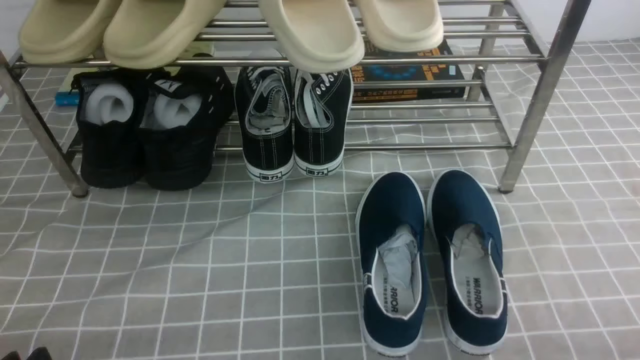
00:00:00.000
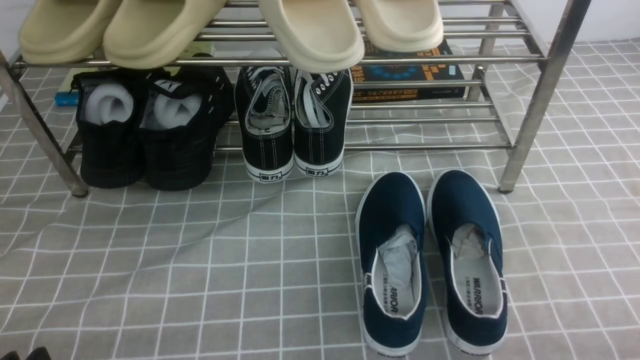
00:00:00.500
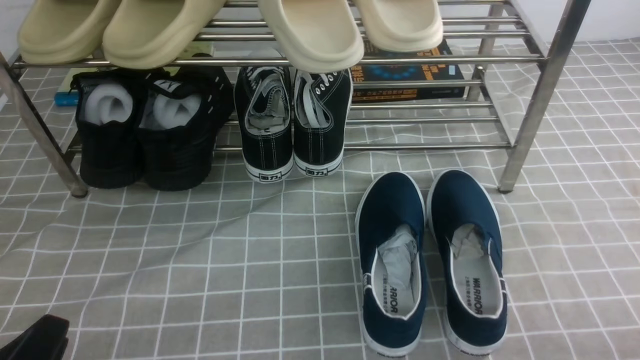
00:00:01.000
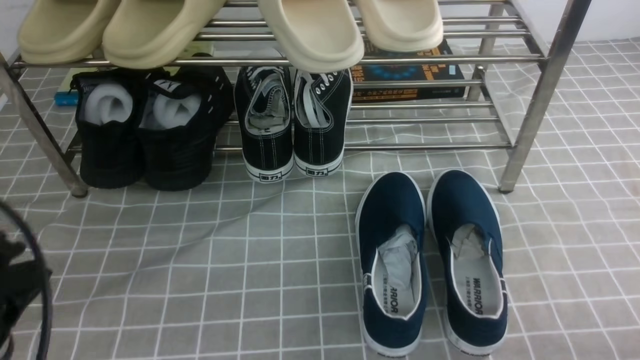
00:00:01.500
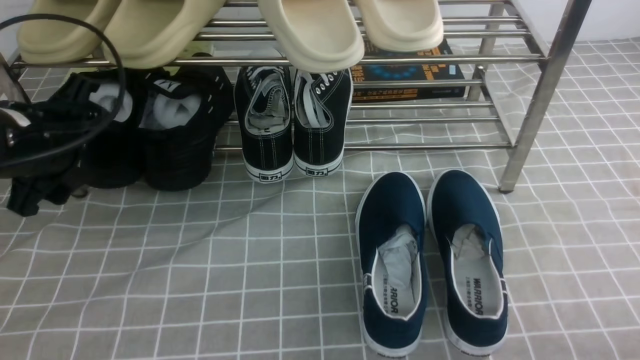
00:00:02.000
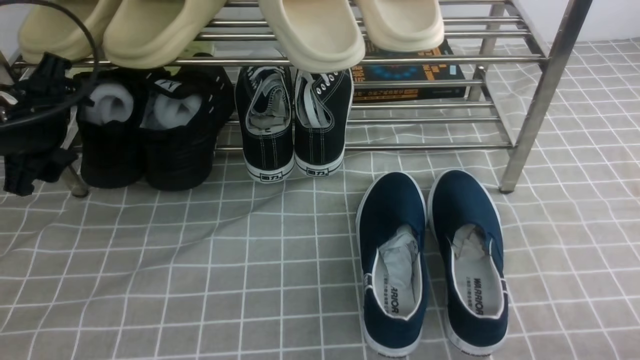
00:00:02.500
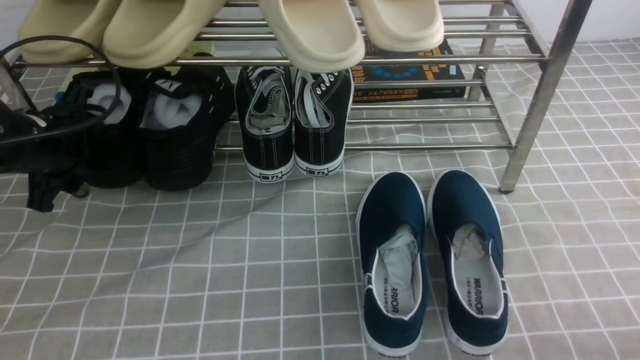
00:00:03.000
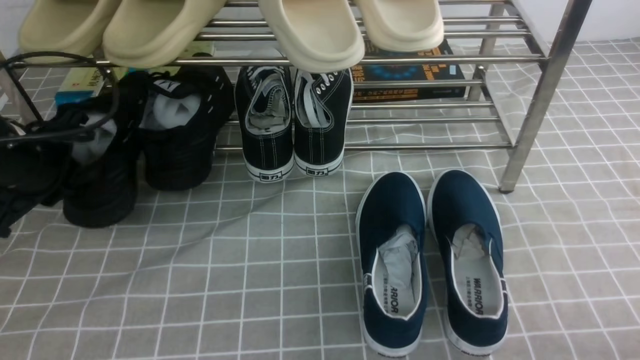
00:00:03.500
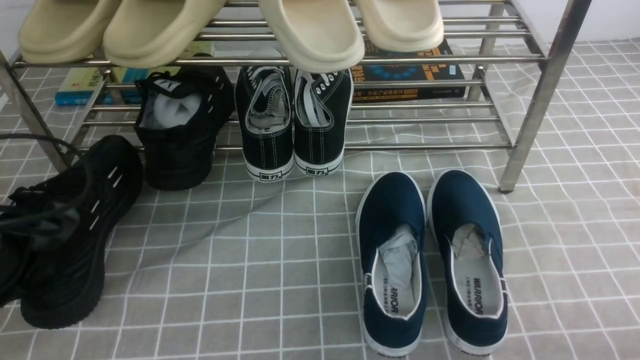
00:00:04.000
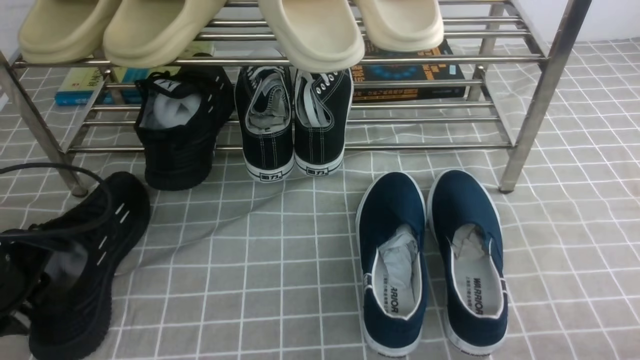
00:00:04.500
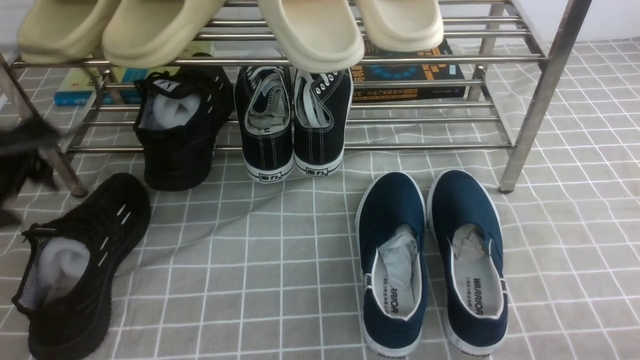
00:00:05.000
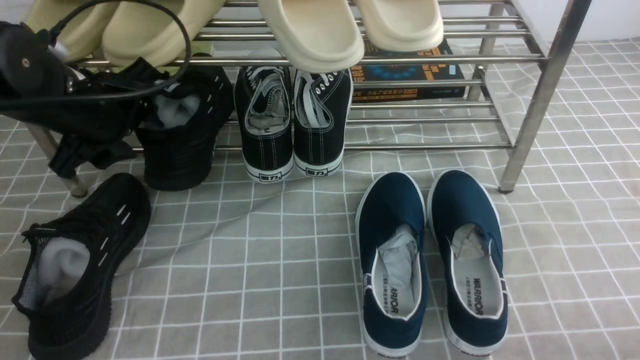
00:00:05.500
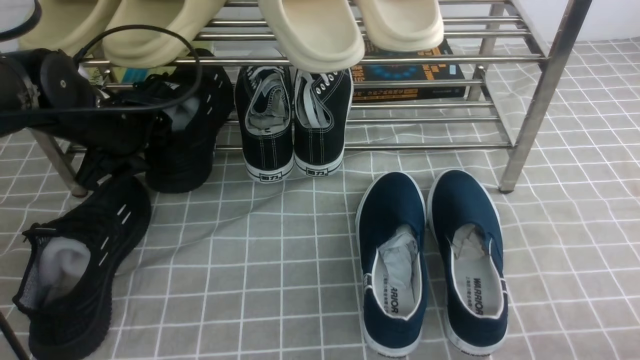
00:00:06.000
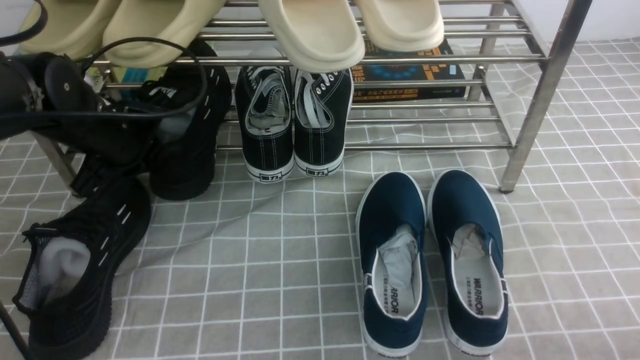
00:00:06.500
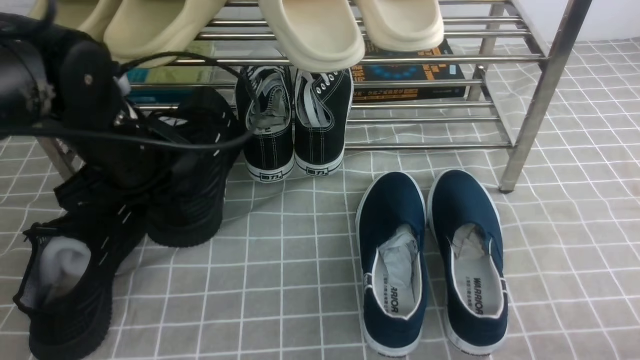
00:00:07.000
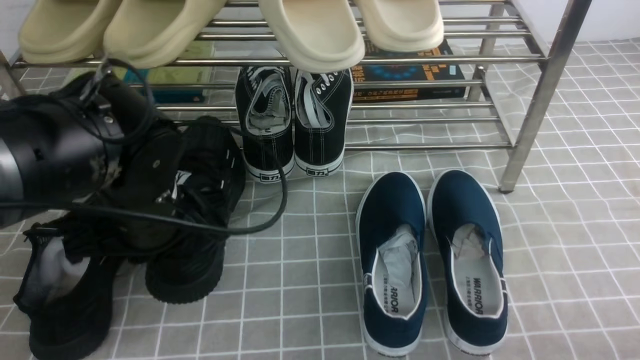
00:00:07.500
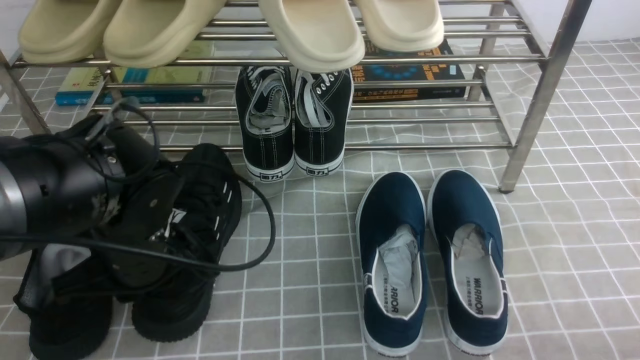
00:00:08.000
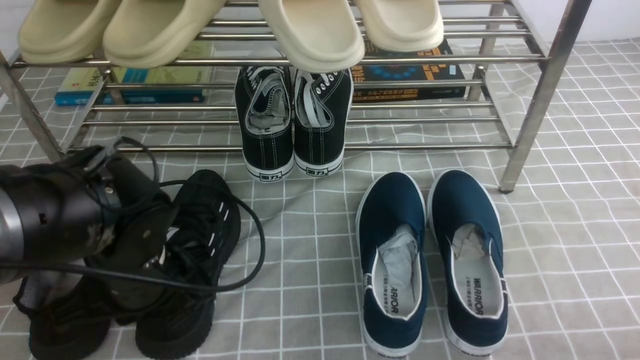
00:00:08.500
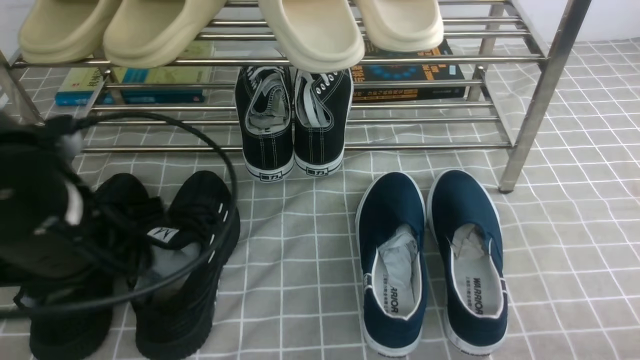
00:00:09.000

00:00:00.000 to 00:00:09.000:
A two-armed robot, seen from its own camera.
Step, 00:00:00.000 to 00:00:03.000: use the left arm to clamp a shoe on the left side of the shoe rack.
Step, 00:00:04.000 to 00:00:05.000: Use your left arm to remove the clamped shoe from the shoe rack and put it down.
Step, 00:00:05.500 to 00:00:06.500: use the left arm to clamp a shoe on the left side of the shoe rack.
Step, 00:00:07.000 to 00:00:08.500: Use your left arm to remove the clamped shoe from the shoe rack and put it down.
00:00:00.000 to 00:00:02.000: The left gripper travels forward and upward by some 25 cm, and opens.
00:00:02.000 to 00:00:04.500: The left gripper is displaced backward and downward by some 10 cm, and closes.
00:00:04.500 to 00:00:07.000: The left gripper heads to the right, forward and upward, covering about 15 cm, and closes up.
00:00:07.000 to 00:00:09.000: The left gripper moves backward, some 10 cm, and opens.

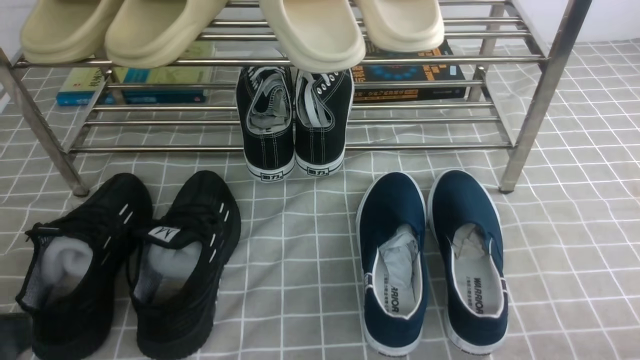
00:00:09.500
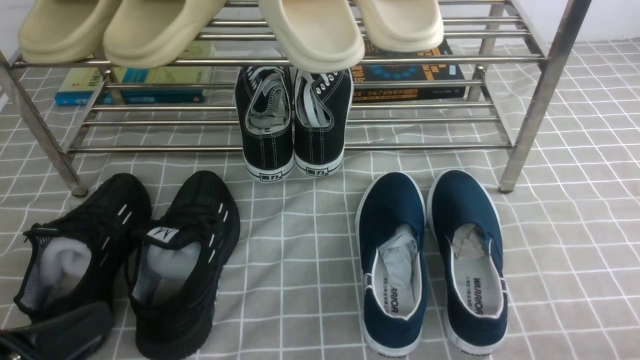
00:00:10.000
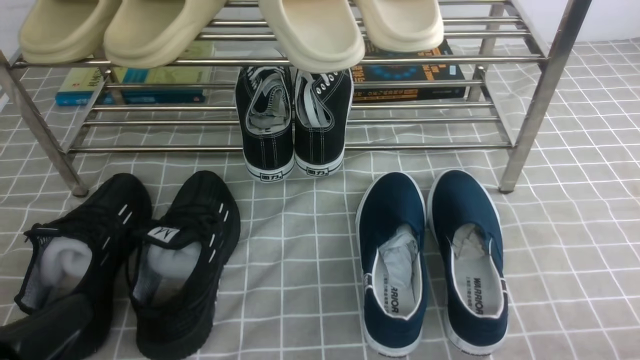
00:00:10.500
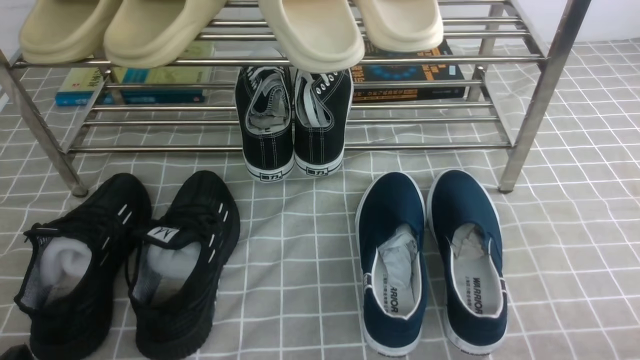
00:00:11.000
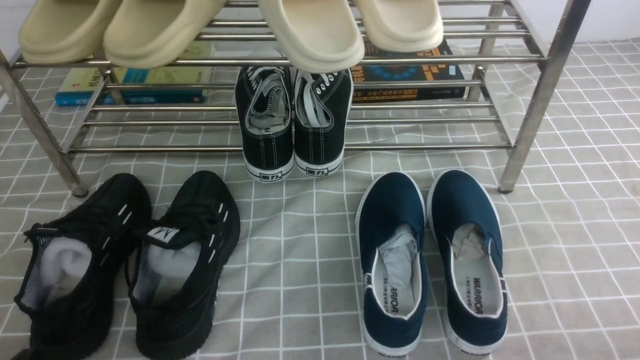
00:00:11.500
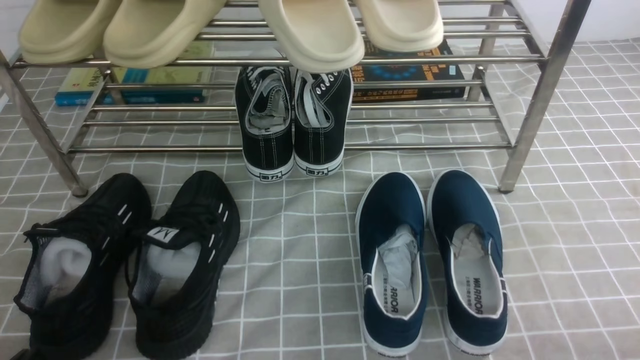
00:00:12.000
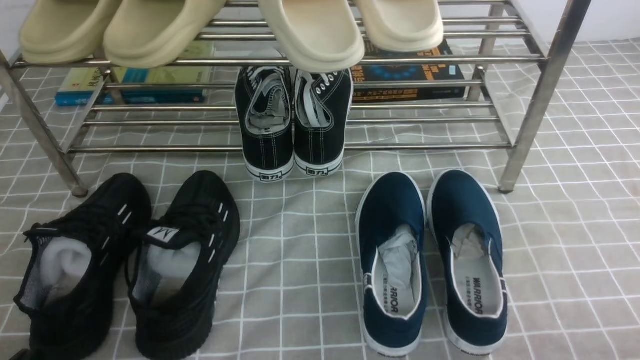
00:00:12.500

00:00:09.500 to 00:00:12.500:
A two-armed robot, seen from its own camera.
00:00:09.500 to 00:00:11.000: The left gripper moves downward, some 15 cm.
00:00:11.000 to 00:00:12.500: Neither gripper changes place.

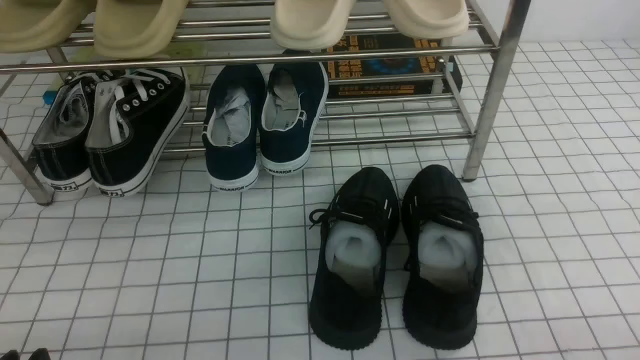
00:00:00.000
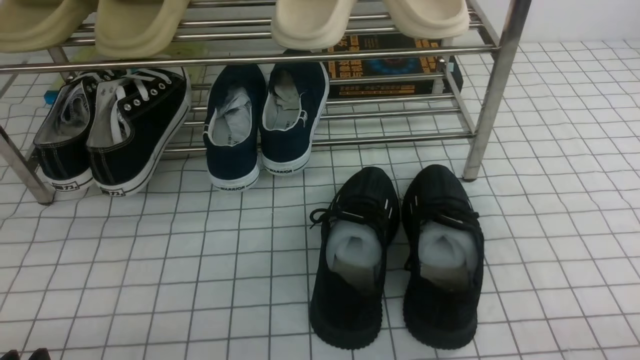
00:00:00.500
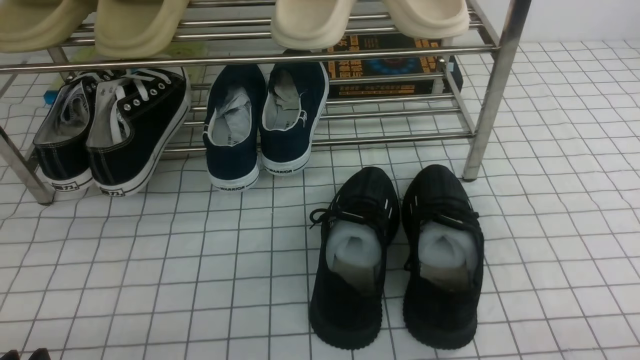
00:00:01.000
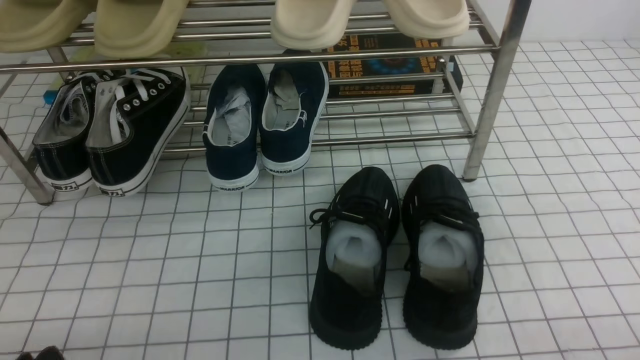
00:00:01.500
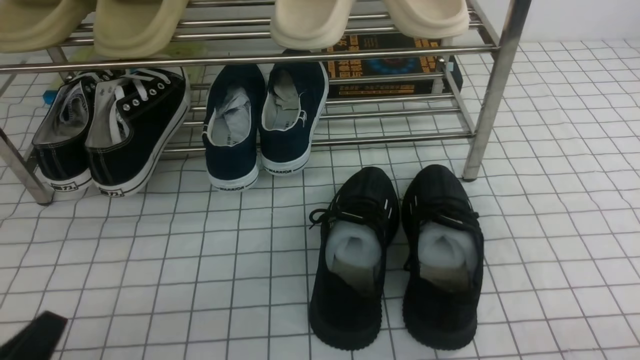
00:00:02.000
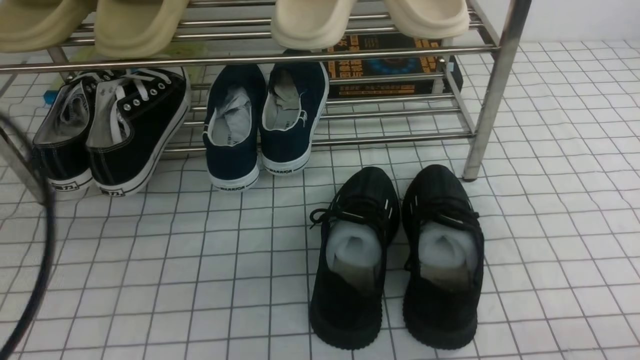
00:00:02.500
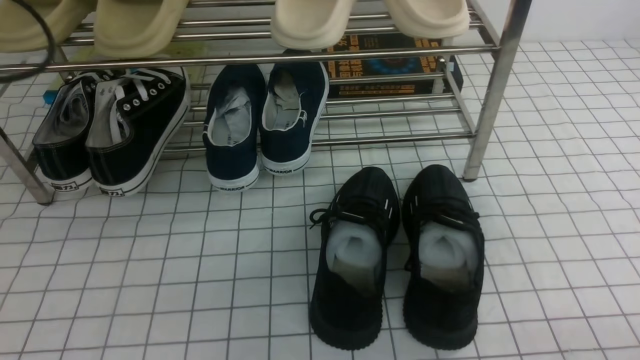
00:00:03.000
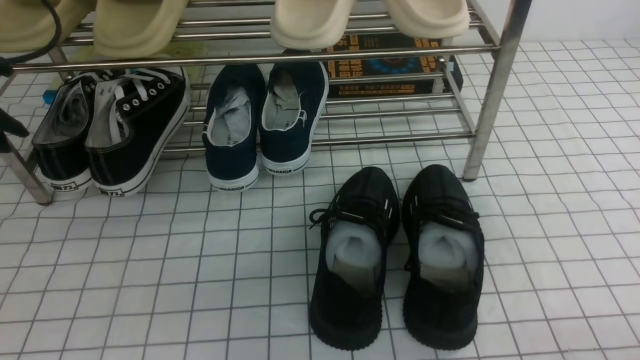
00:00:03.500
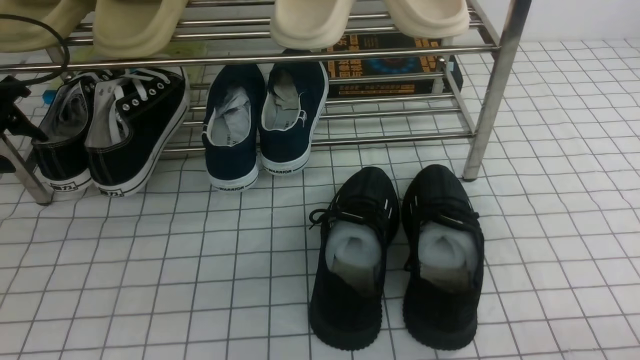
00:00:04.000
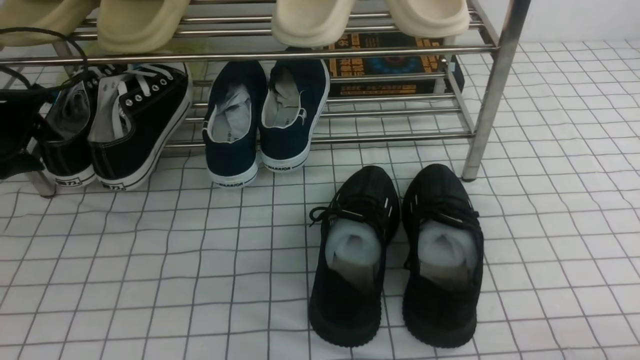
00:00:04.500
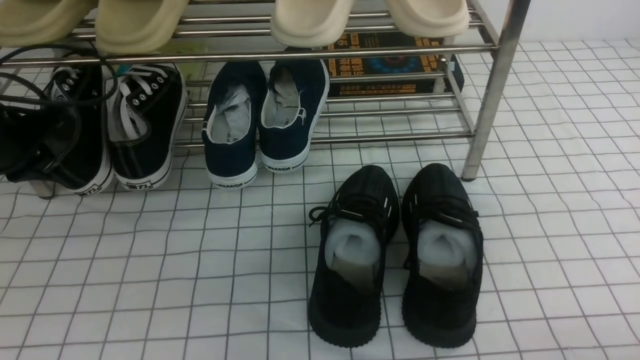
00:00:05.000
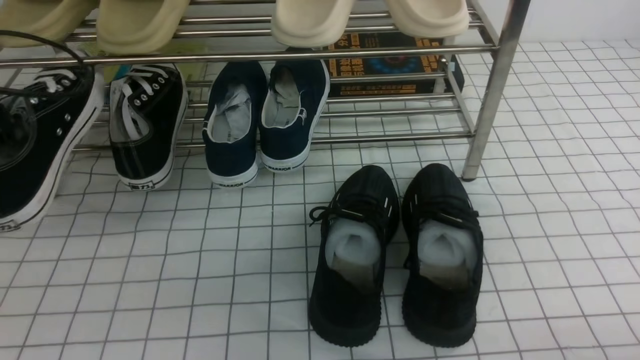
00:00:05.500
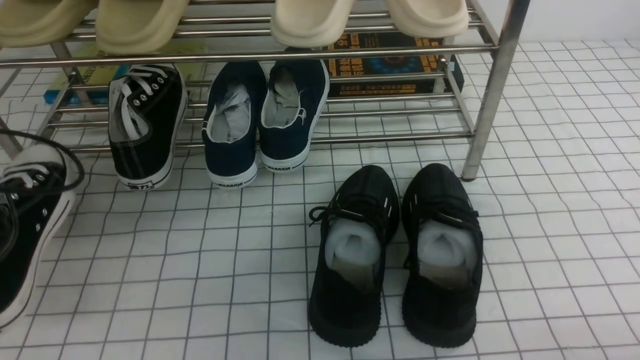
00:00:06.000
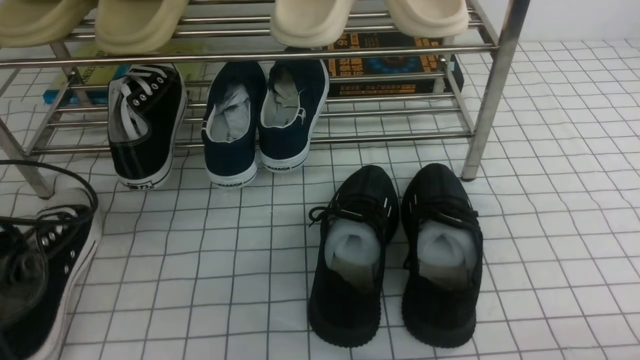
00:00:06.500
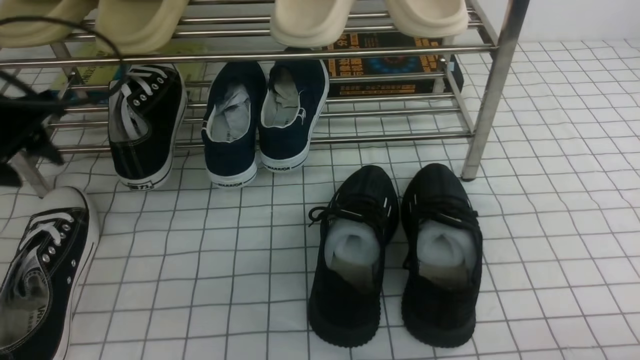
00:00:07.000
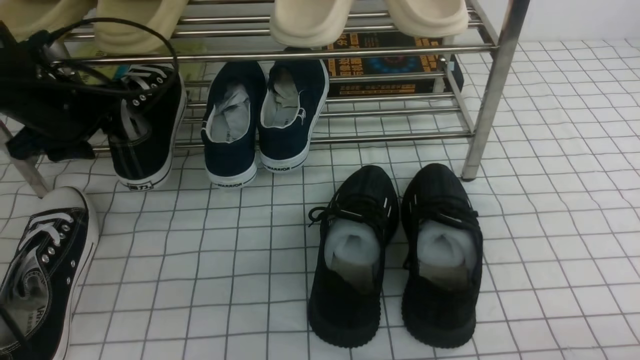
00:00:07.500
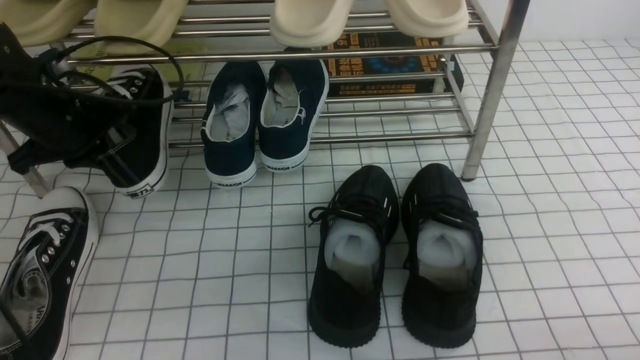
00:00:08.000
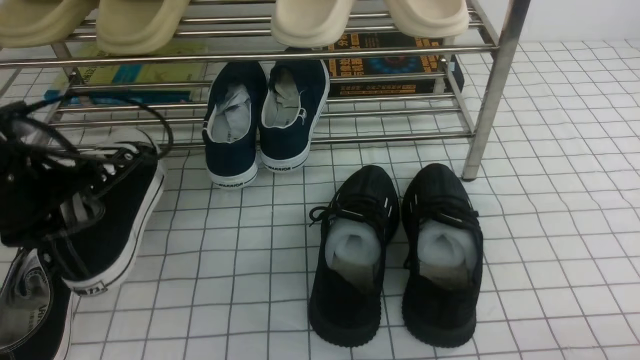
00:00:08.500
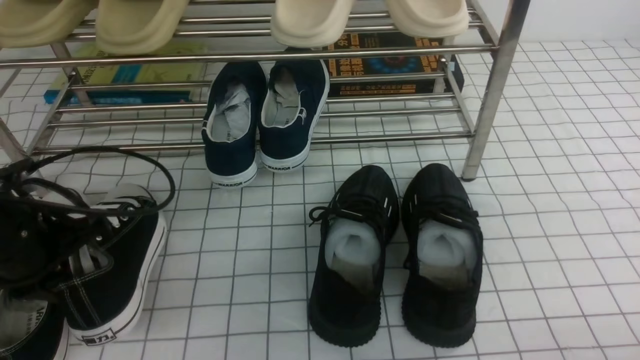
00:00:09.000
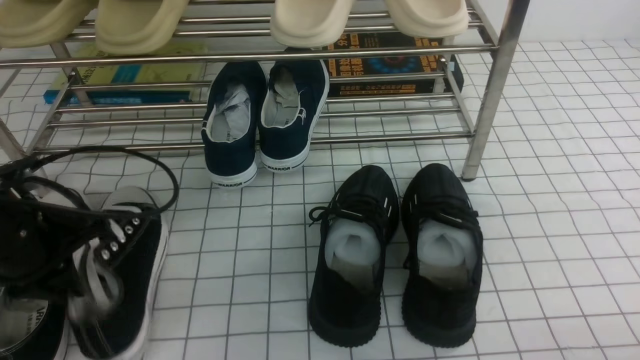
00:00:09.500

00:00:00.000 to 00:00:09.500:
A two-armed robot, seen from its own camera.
Step, 00:00:00.000 to 00:00:04.500: use the left arm to clamp a shoe on the left side of the shoe rack.
Step, 00:00:05.000 to 00:00:06.500: Use your left arm to remove the clamped shoe from the shoe rack and put it down.
Step, 00:00:07.000 to 00:00:07.500: use the left arm to clamp a shoe on the left side of the shoe rack.
00:00:02.000 to 00:00:04.000: The left gripper travels forward and to the left by some 35 cm, and opens.
00:00:04.000 to 00:00:05.500: The left gripper goes approximately 5 cm backward, and closes.
00:00:05.500 to 00:00:07.500: The left gripper is displaced forward, to the right and downward by about 15 cm, and opens up.
00:00:07.500 to 00:00:09.500: The left gripper is displaced backward by about 15 cm, and closes its fingers.
